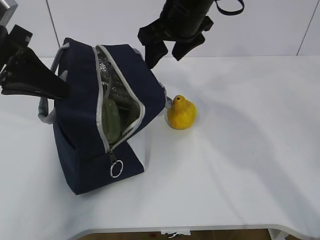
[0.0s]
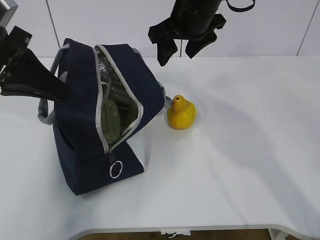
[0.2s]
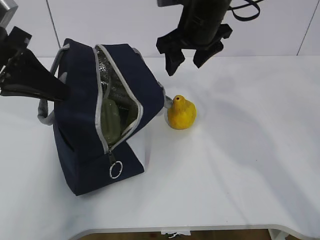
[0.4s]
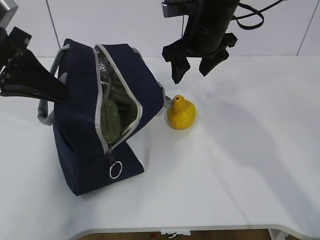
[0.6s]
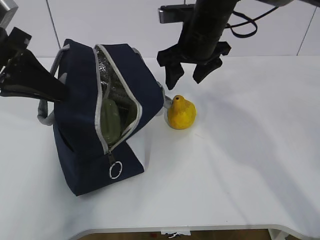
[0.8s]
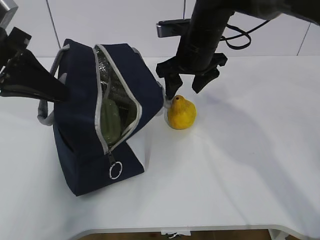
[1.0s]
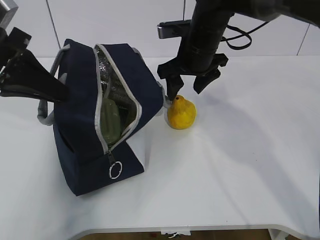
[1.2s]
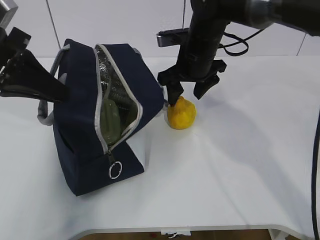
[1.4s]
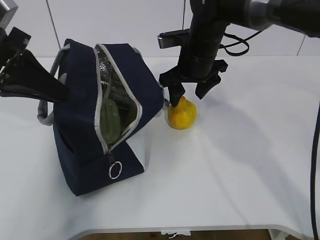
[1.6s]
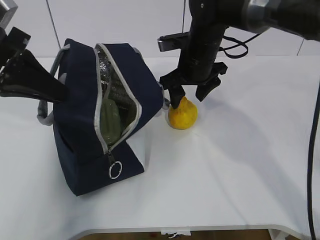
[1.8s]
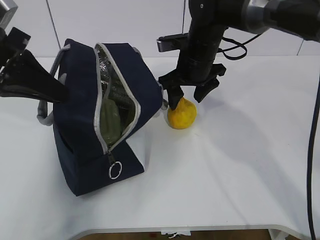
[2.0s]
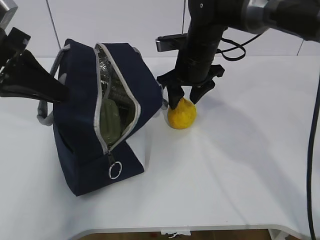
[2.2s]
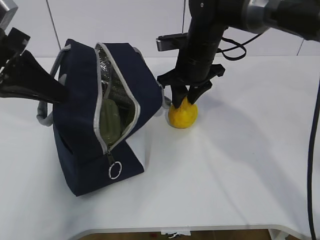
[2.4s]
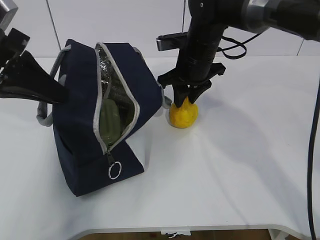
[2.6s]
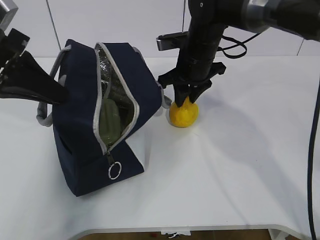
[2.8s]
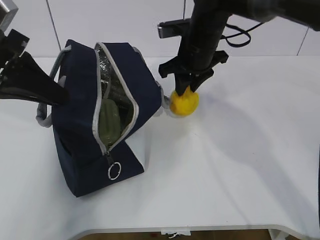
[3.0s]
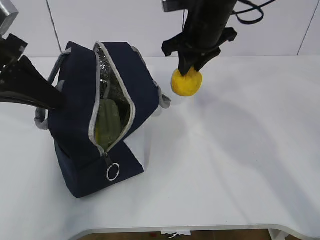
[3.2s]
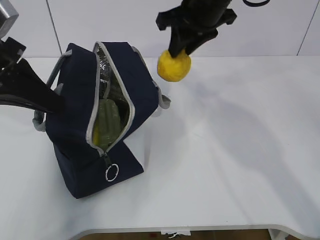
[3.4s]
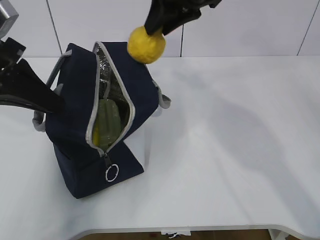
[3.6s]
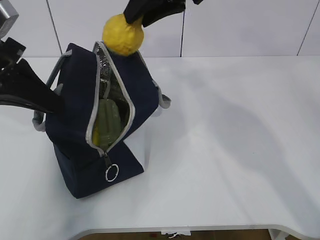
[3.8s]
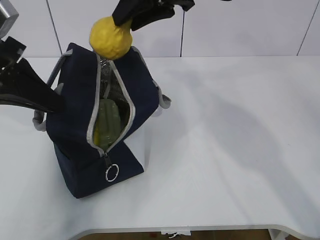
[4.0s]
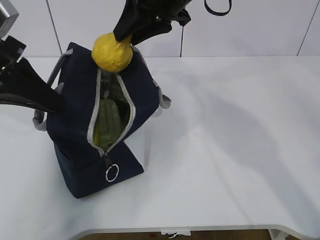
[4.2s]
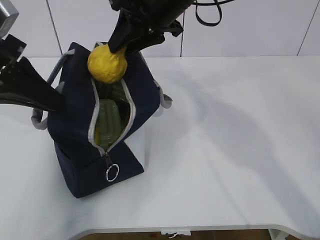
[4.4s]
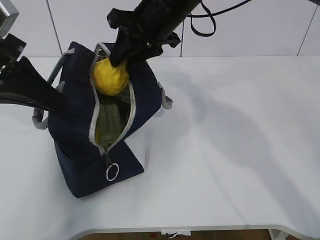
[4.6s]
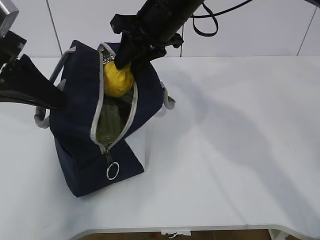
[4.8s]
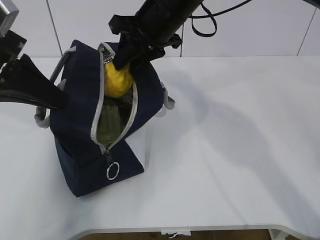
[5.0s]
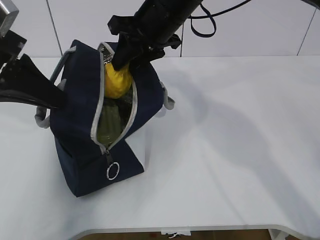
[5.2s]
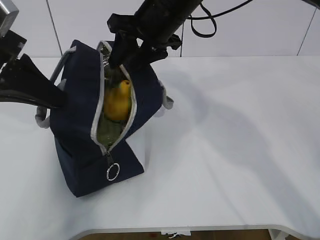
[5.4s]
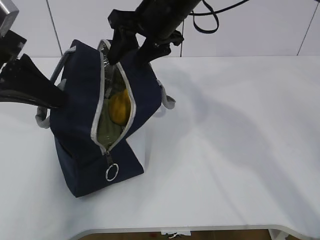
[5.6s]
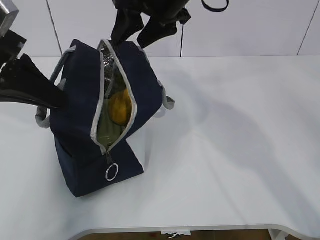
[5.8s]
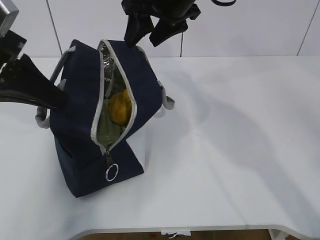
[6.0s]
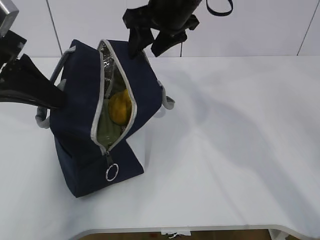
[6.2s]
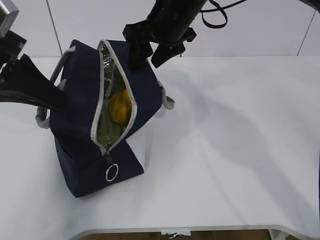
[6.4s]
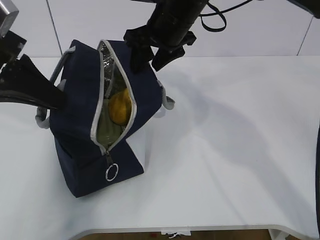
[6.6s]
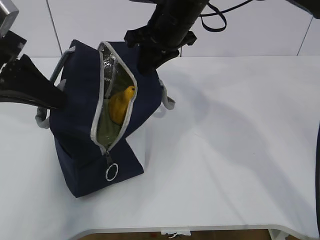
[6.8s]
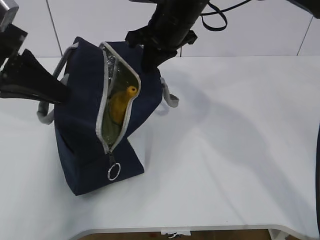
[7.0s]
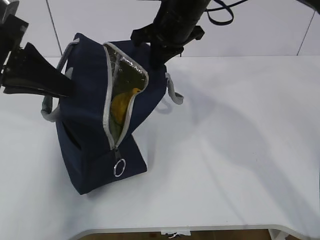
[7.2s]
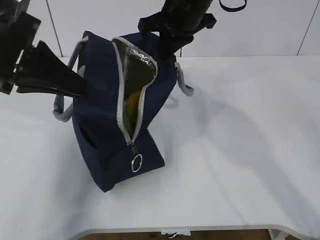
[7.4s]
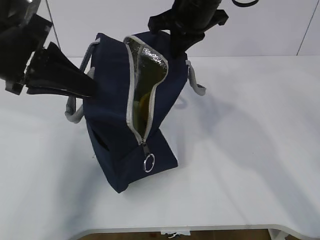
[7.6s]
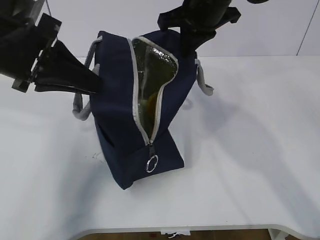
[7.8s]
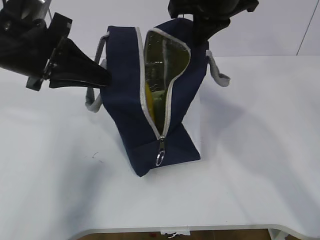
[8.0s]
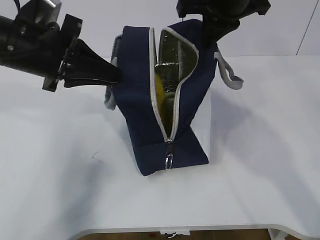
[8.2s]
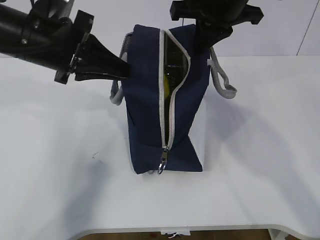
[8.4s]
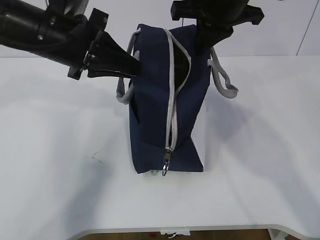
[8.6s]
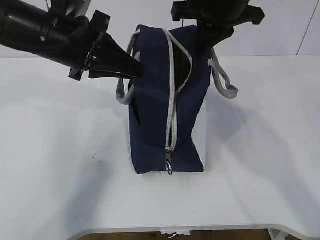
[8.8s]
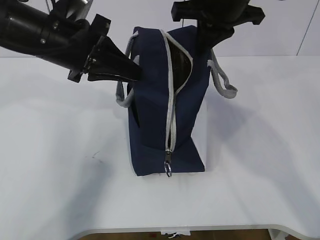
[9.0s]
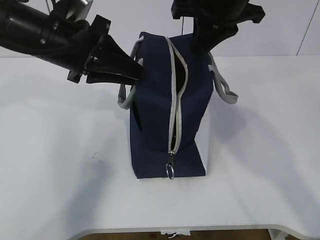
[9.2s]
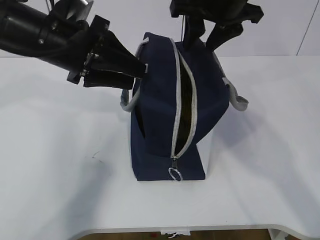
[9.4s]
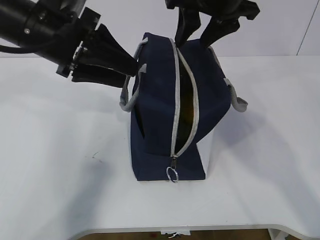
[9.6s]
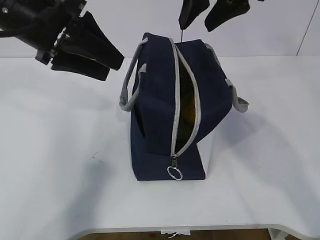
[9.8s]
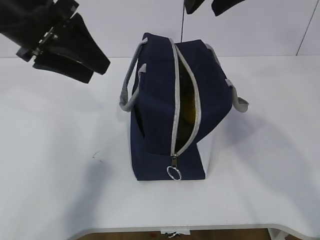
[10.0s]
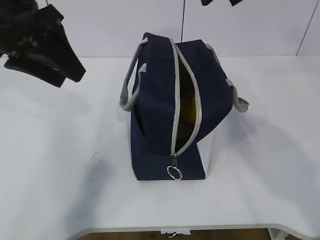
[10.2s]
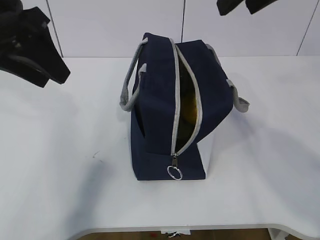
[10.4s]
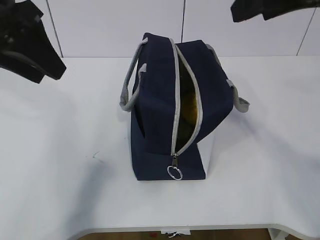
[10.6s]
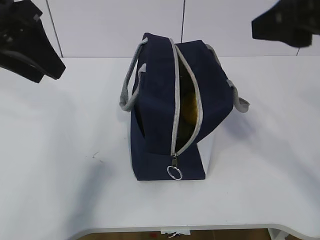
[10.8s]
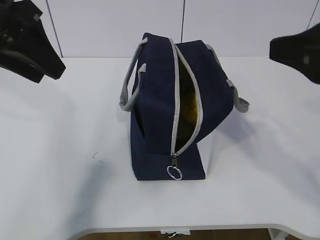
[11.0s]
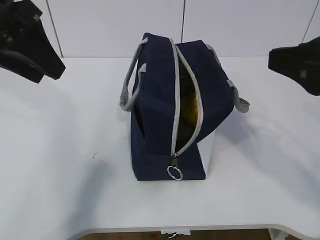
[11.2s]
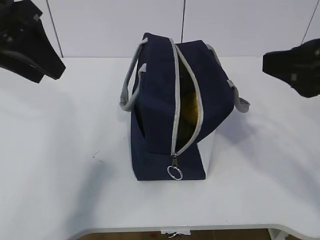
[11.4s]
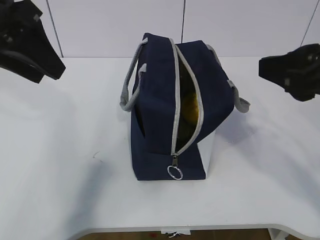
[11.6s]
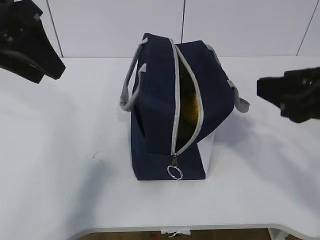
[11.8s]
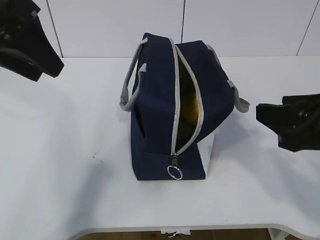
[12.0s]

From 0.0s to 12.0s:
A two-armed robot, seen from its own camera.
Step, from 0.0s to 2.8s: Grasp the pear with the right gripper.
Step, from 3.0s to 5.6s: Place the pear into the package with the right gripper.
From 0.0s to 1.6s: The right gripper shifts roughly 10 cm downward.
From 1.6s to 3.0s: The right gripper closes up.
From 3.0s to 4.4s: The right gripper goes approximately 10 cm upward and to the left.
From 4.4s to 6.0s: The right gripper opens up.
From 6.0s to 7.6s: The right gripper closes.
From 7.6s to 9.0s: The left gripper goes some 5 cm forward.
From 9.0s to 10.4s: The right gripper is displaced backward and upward by roughly 10 cm, and opens up, while the left gripper moves upward and to the left, roughly 10 cm, and opens up.
From 10.4s to 12.0s: The right gripper heads downward and backward, covering about 20 cm.

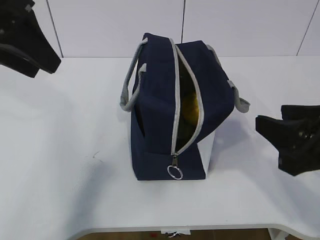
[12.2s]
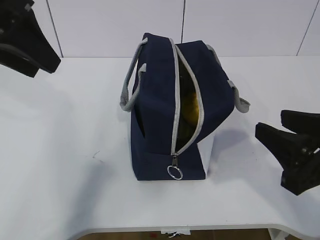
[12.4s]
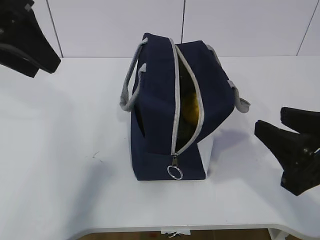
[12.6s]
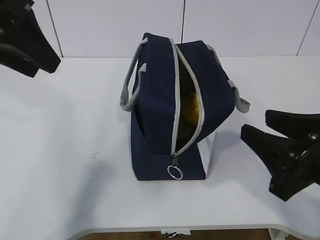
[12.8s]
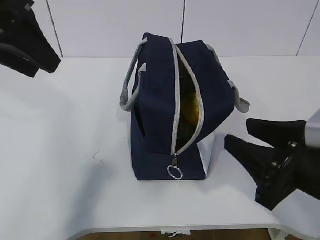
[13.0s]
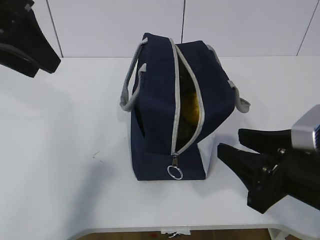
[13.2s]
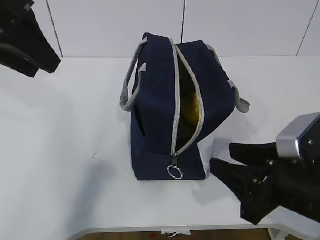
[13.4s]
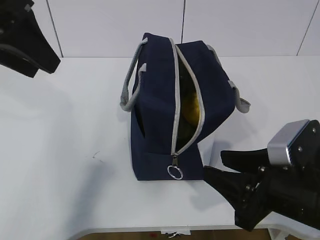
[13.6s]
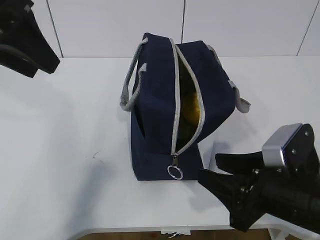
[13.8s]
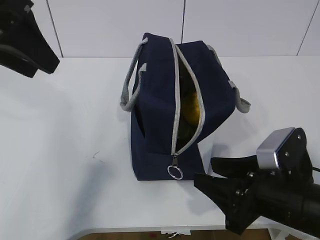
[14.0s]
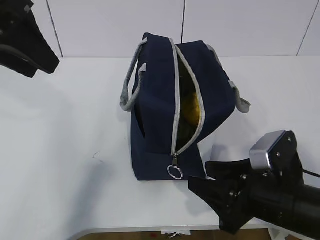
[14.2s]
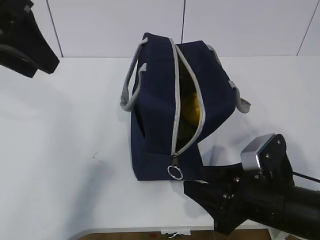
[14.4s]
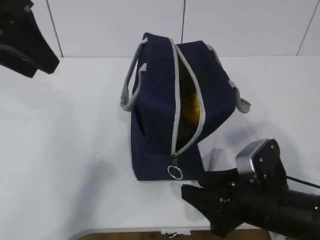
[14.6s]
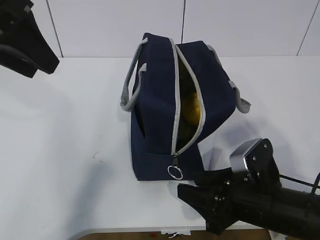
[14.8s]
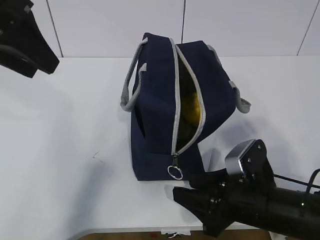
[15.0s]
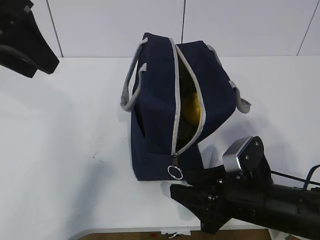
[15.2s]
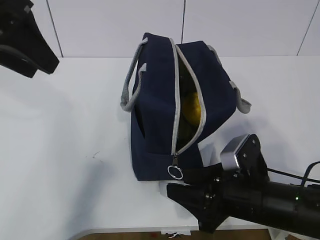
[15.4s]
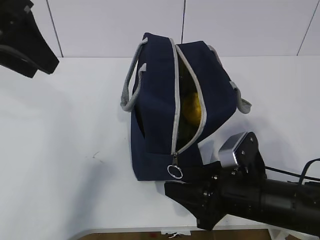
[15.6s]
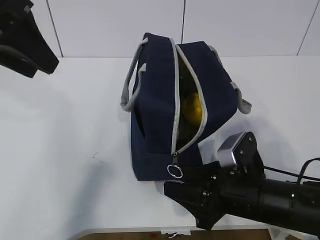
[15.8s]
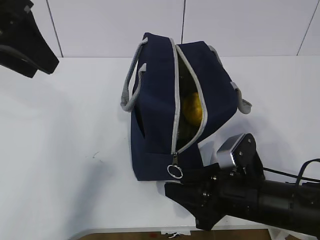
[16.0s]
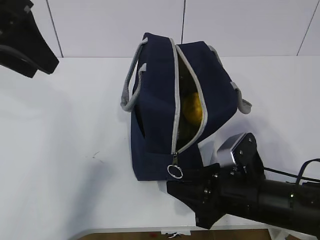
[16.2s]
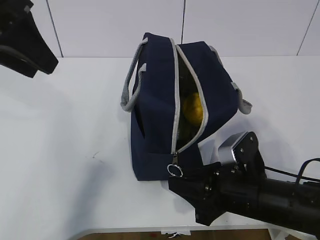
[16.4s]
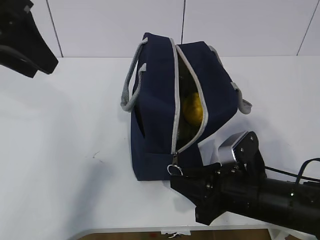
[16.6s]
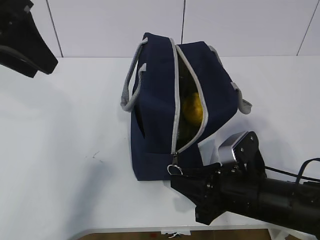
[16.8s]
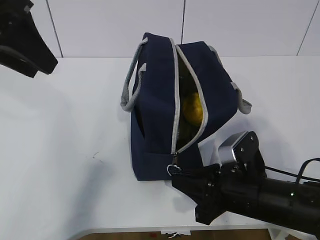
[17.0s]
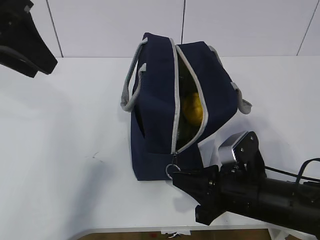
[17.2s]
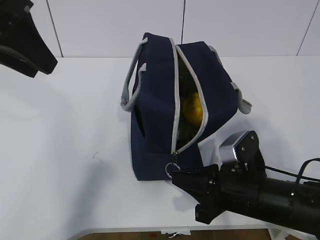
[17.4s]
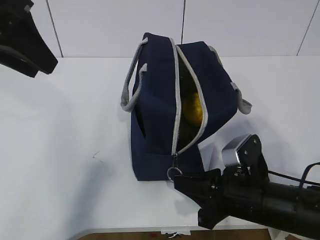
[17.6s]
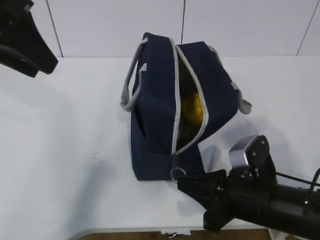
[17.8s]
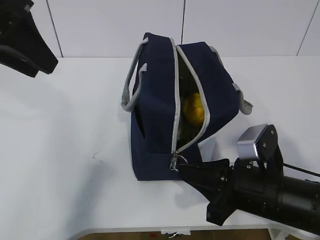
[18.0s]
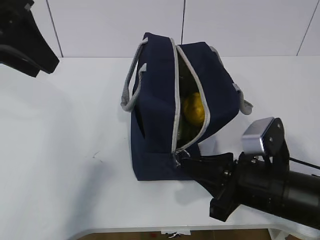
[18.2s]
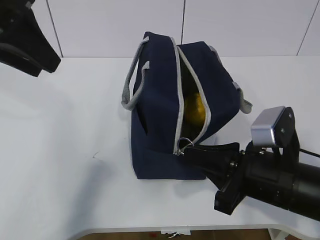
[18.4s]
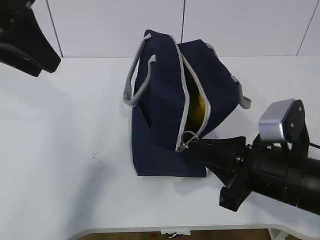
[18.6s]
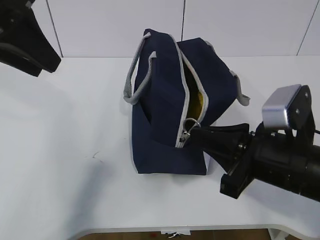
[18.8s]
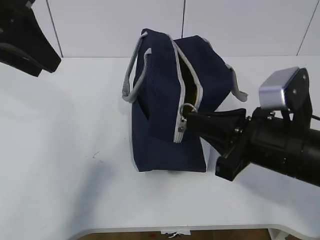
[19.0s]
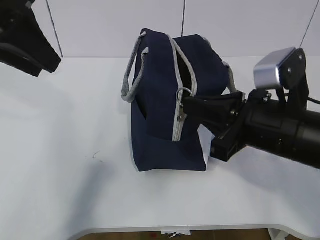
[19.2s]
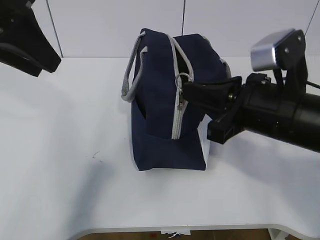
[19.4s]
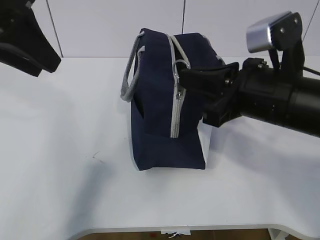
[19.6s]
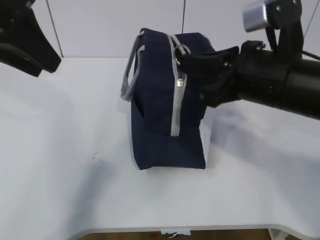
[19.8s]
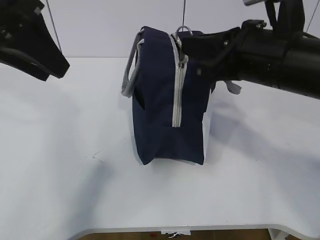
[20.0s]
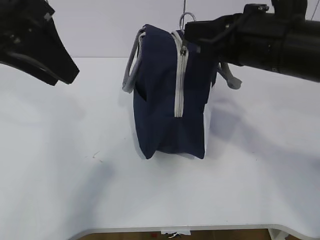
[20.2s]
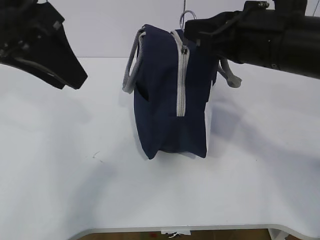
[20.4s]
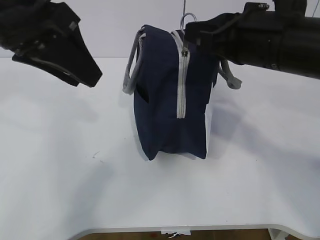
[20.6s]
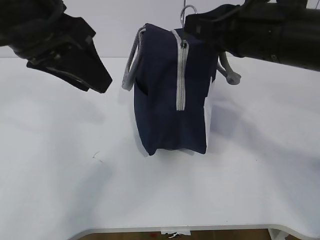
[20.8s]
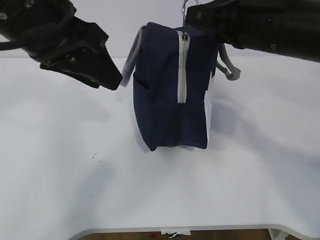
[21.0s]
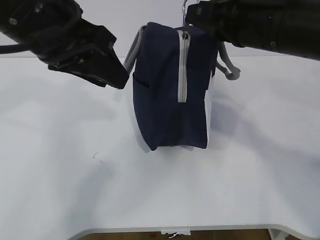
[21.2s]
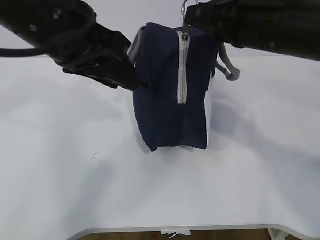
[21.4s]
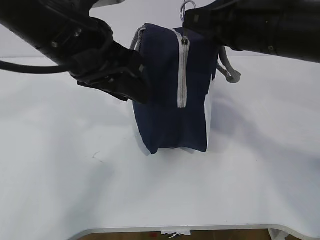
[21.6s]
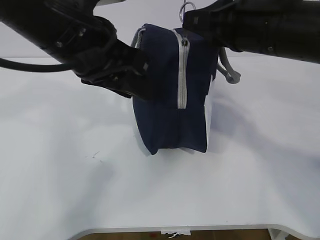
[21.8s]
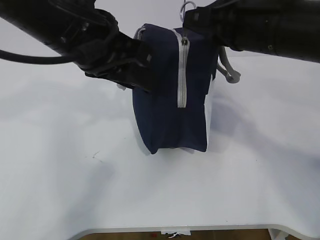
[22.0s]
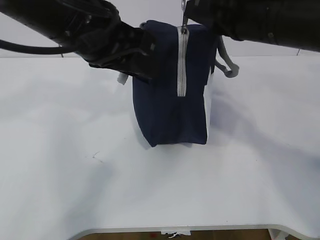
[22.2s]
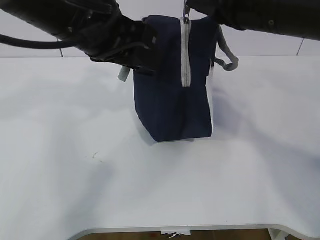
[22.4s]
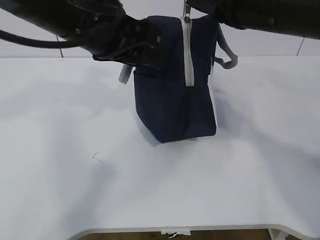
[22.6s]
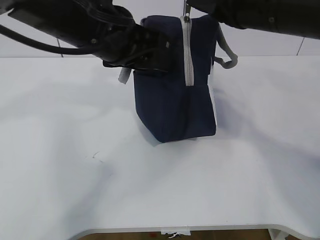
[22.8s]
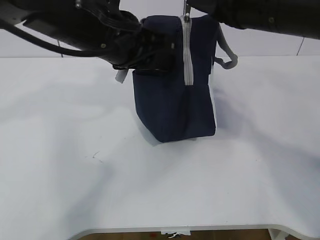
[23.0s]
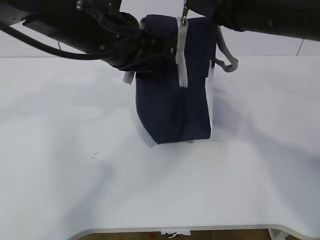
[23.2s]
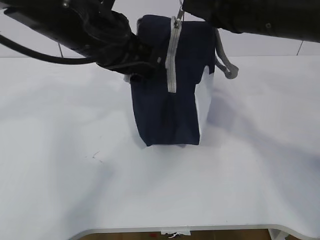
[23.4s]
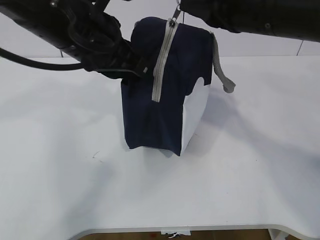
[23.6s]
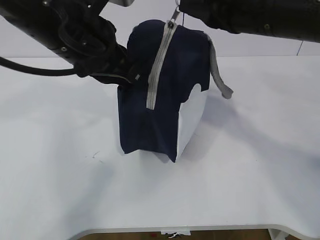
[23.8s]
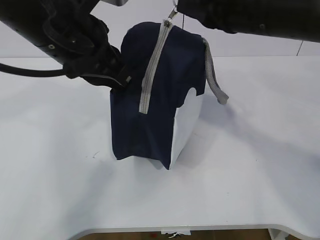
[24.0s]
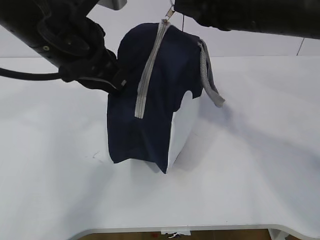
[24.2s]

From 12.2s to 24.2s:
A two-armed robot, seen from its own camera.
From 12.2s to 13.8s: The right gripper heads downward, covering approximately 10 cm.
From 13.8s to 15.2s: The right gripper ends up some 5 cm from where it was.
From 15.2s to 16.6s: The right gripper closes its fingers.
From 16.6s to 18.2s: The right gripper closes its fingers.
From 18.2s to 19.8s: The right gripper moves upward, approximately 15 cm.
From 19.8s to 21.2s: The left gripper goes about 10 cm to the right; the right gripper travels upward by some 5 cm.
From 21.2s to 22.6s: The left gripper shifts by roughly 5 cm.
From 22.6s to 24.2s: The left gripper closes.
